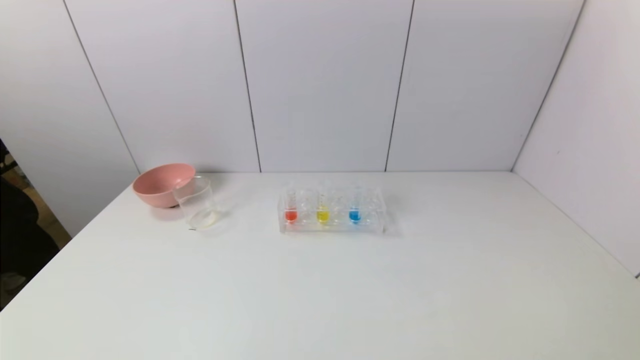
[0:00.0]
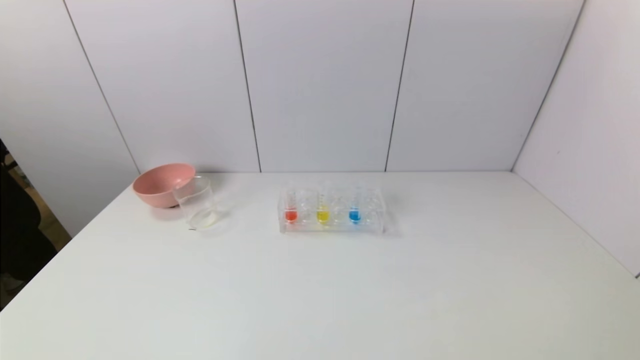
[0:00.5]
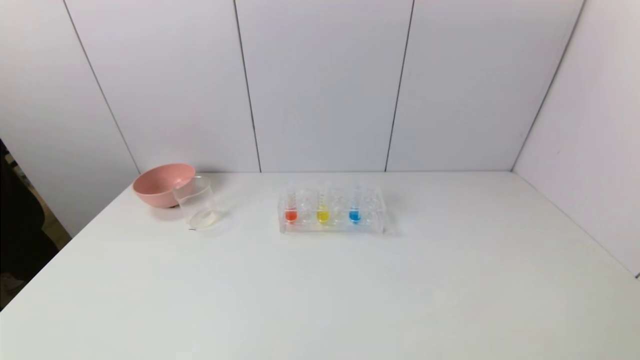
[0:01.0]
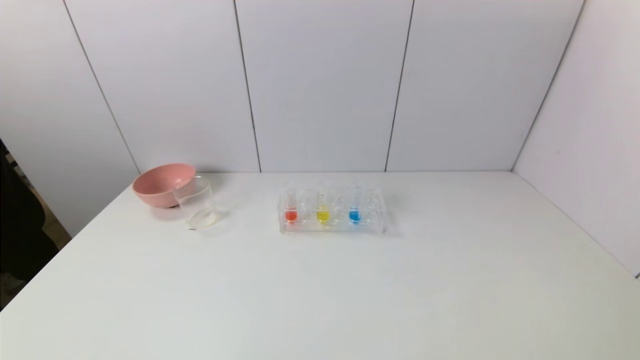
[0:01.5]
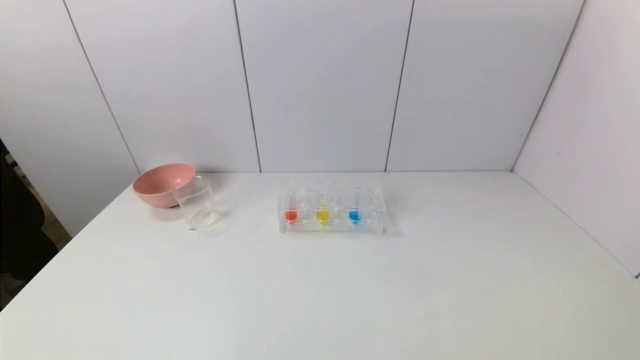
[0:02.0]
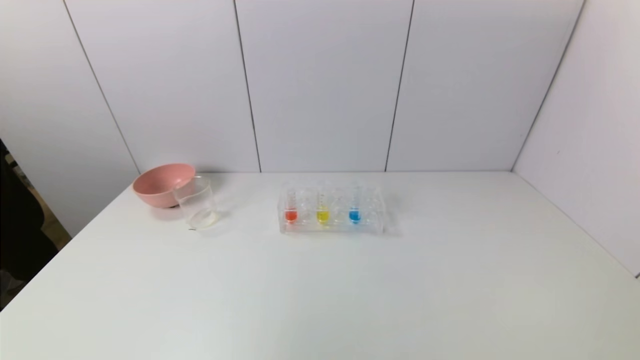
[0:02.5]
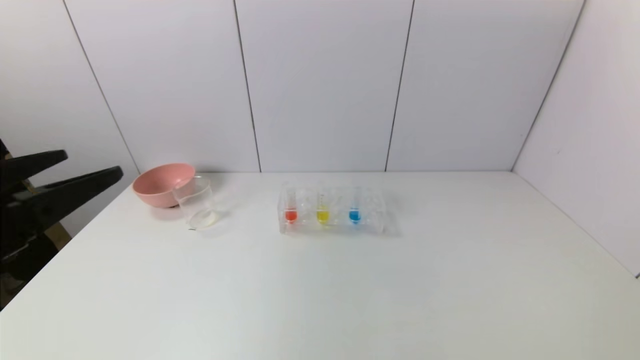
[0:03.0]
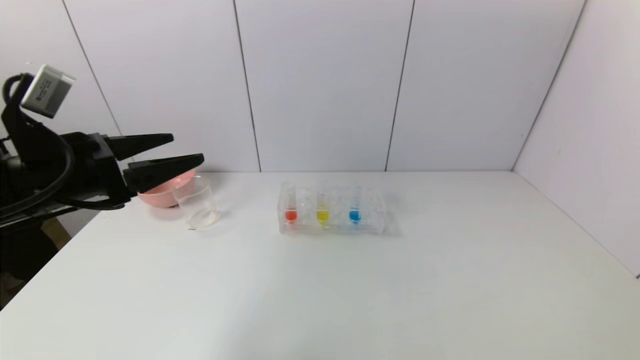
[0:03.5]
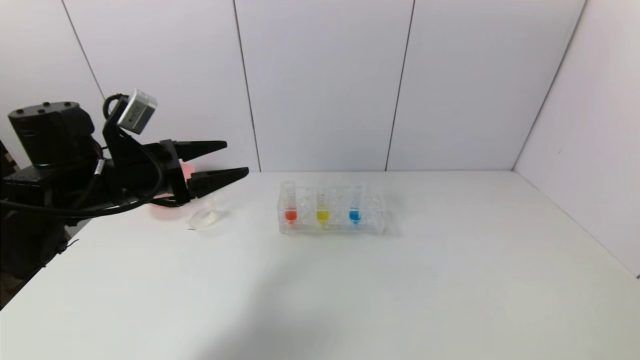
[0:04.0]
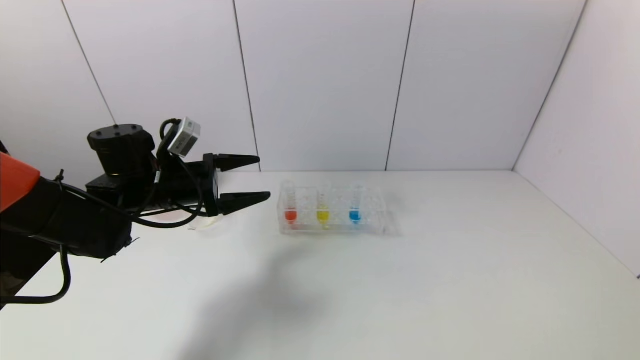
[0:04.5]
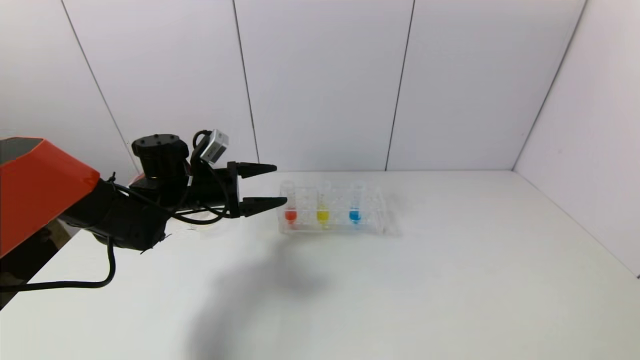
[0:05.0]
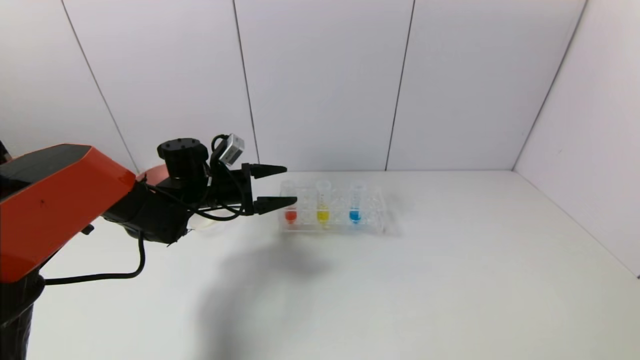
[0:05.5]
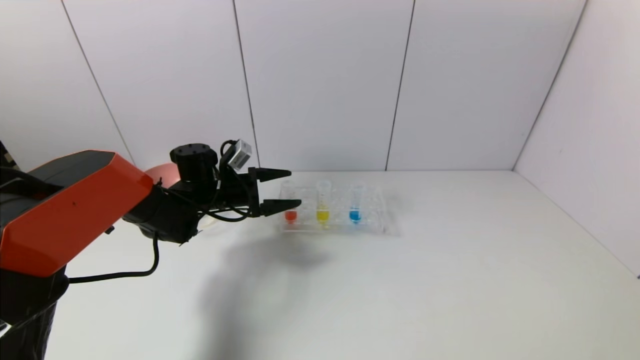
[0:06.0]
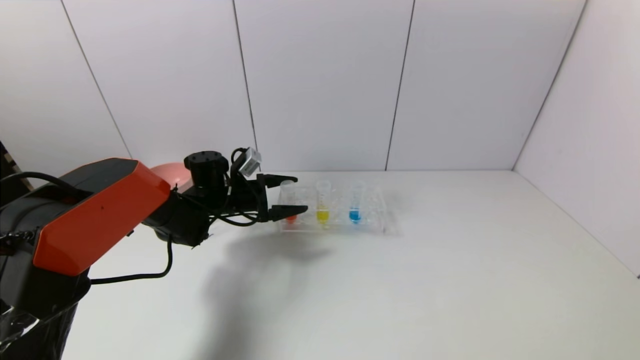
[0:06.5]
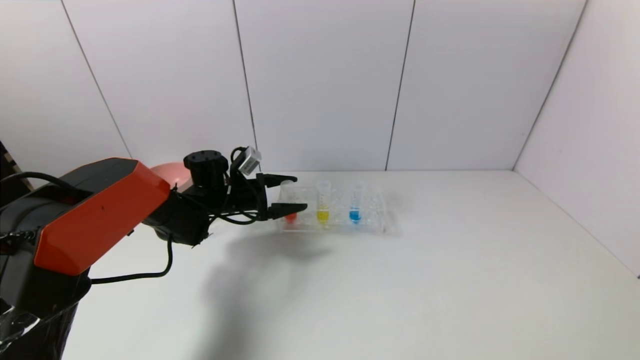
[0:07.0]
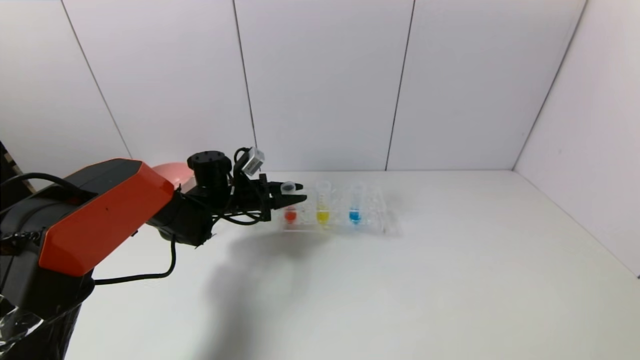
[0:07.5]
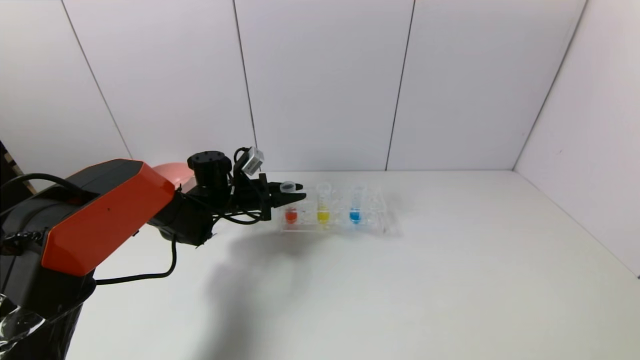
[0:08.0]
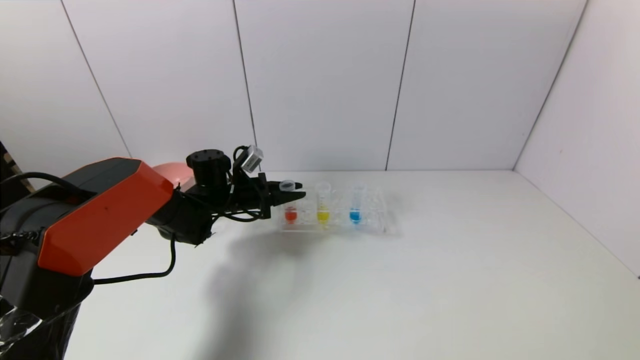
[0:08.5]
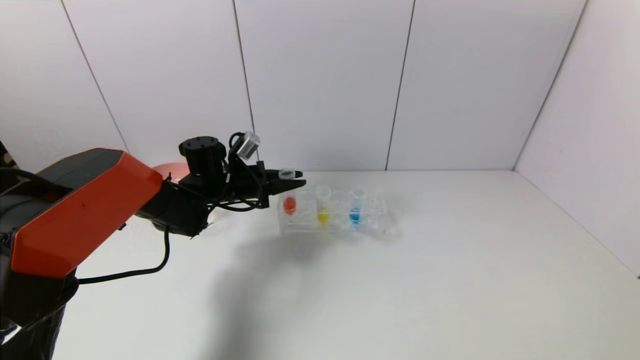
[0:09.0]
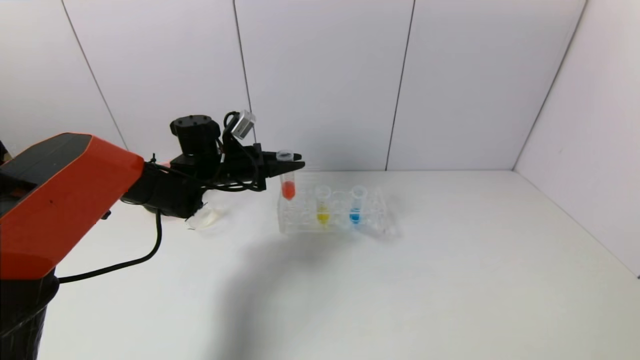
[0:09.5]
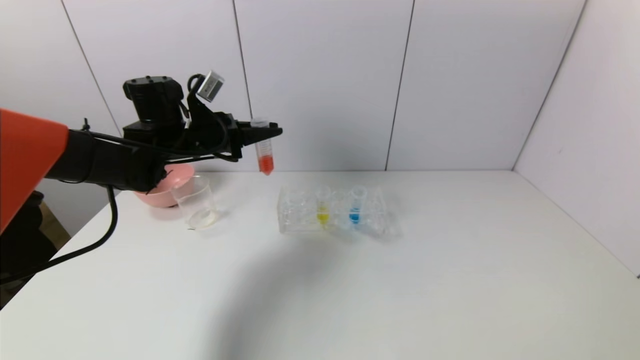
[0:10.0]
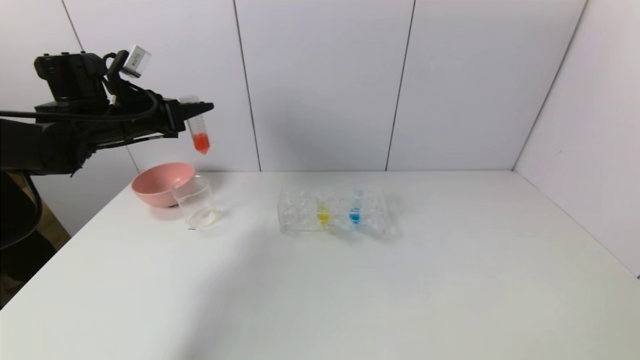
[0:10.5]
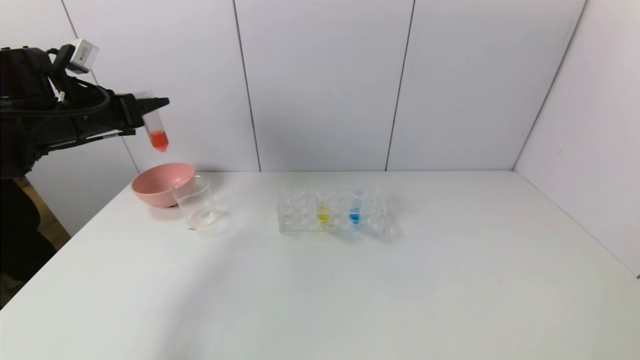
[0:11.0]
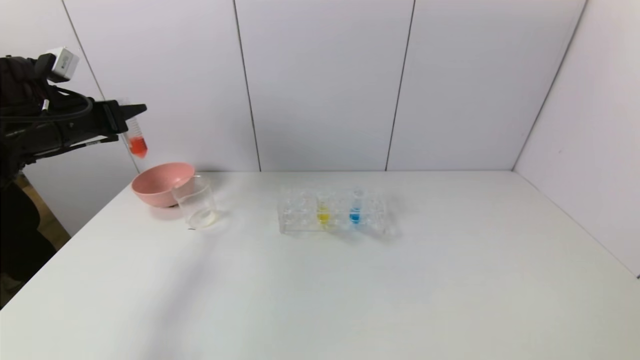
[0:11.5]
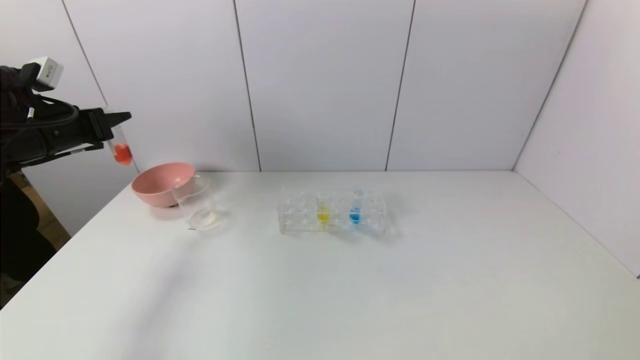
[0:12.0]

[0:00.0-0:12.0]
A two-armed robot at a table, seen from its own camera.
Task of the whole recording: pick up the test tube with yellow pigment and the test tube with red pigment by grippers and pour them into the beaker.
Step, 0:00.0 to 0:07.5: Grasp the red reagent with the left gripper.
0:02.0 to 0:04.0: The left gripper moves forward, about 35 cm.
0:04.0 to 0:06.0: The left gripper travels forward, downward and to the right by some 20 cm.
0:06.0 to 0:08.0: The left gripper closes.
0:08.0 to 0:10.0: The left gripper moves upward, some 15 cm.
0:10.0 to 0:12.0: The left gripper goes about 15 cm to the left.

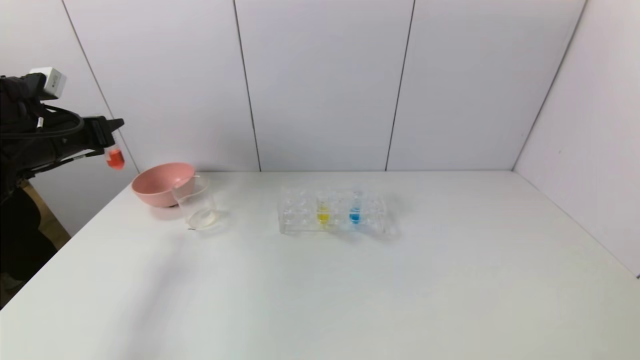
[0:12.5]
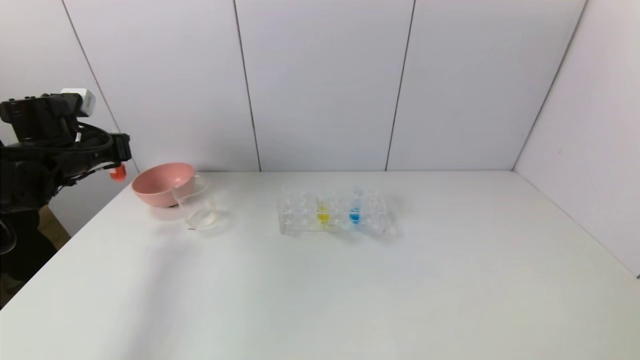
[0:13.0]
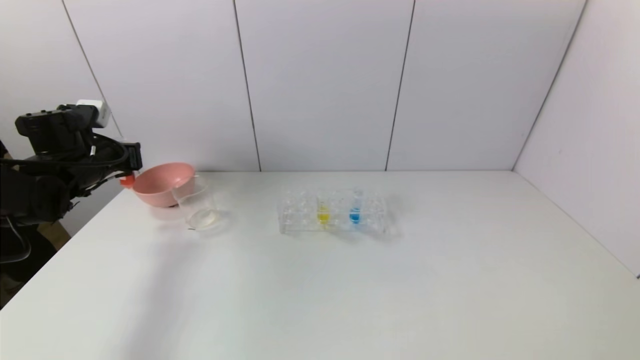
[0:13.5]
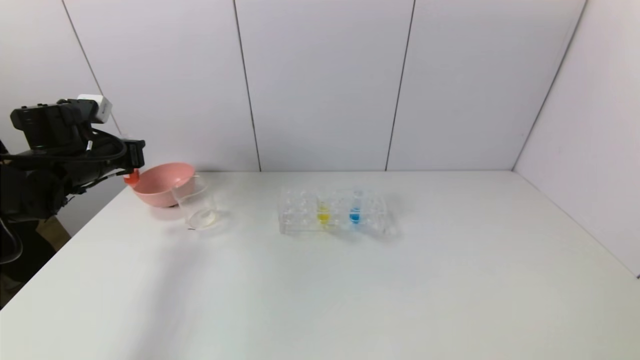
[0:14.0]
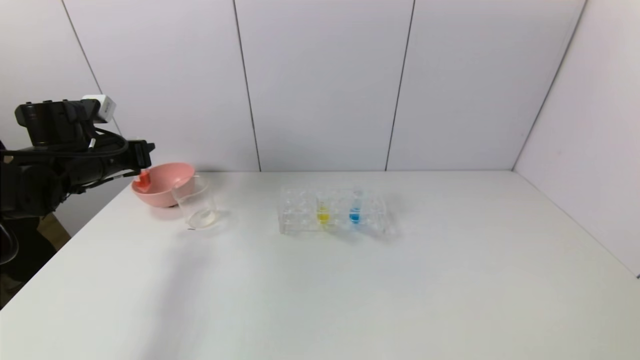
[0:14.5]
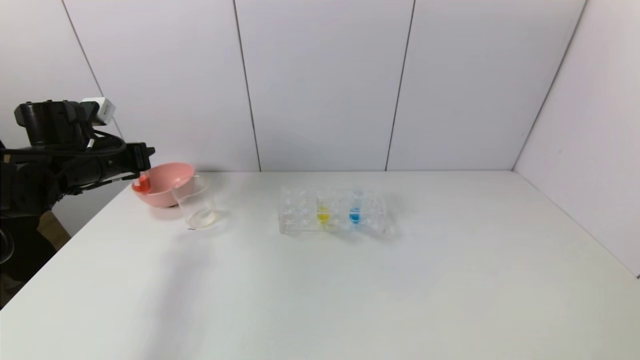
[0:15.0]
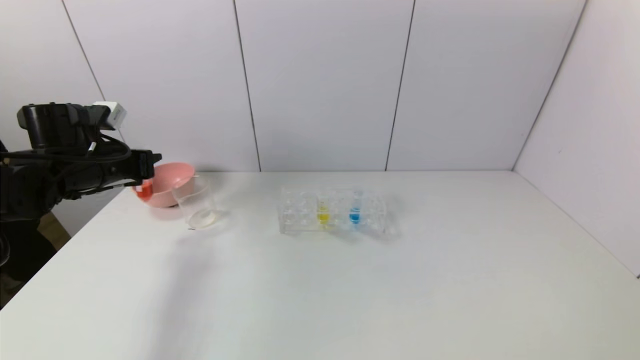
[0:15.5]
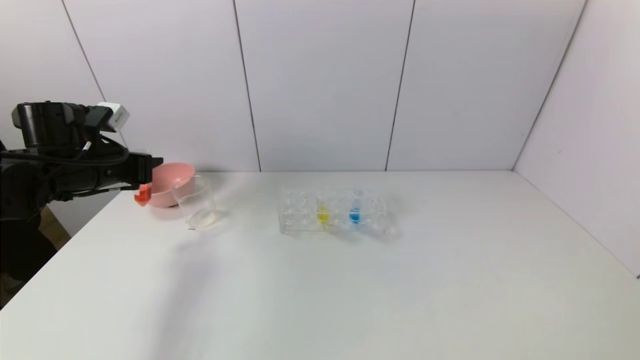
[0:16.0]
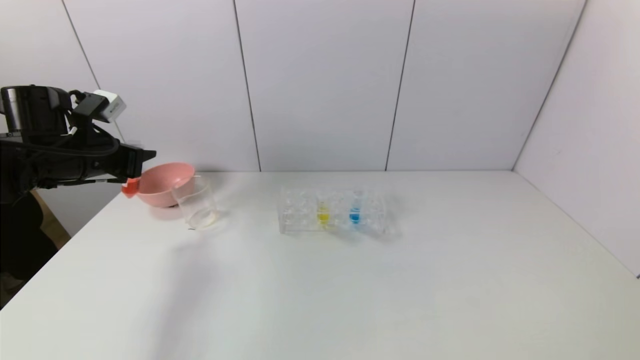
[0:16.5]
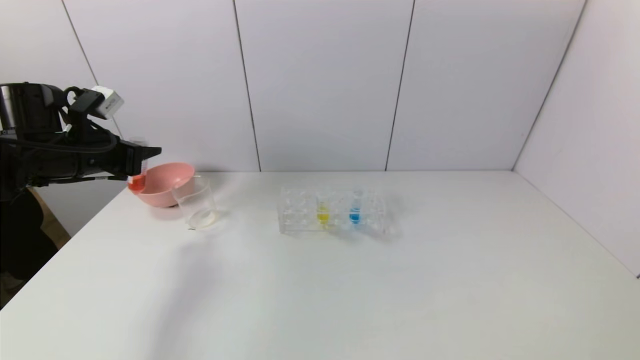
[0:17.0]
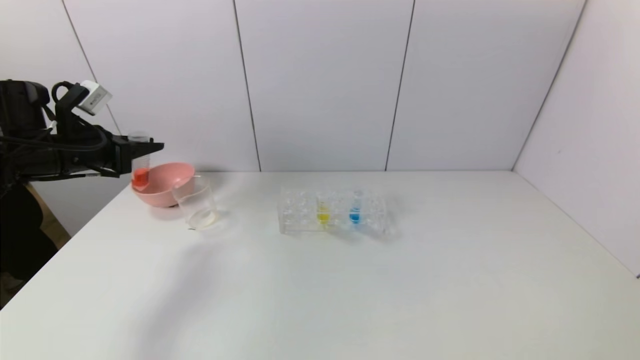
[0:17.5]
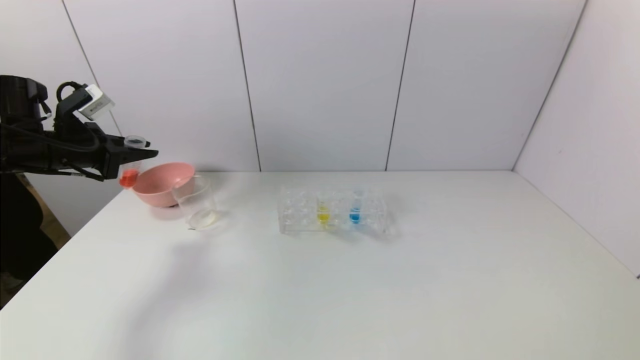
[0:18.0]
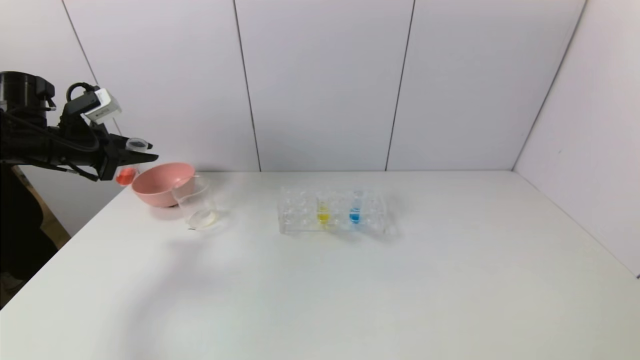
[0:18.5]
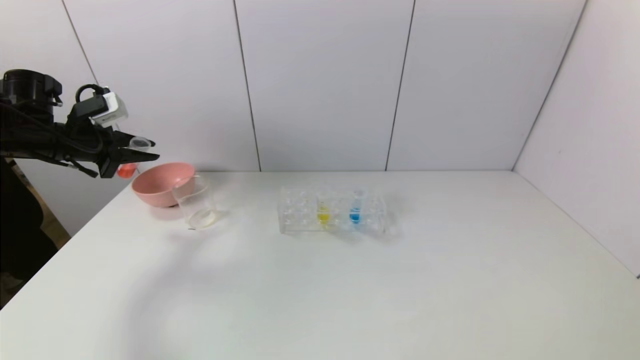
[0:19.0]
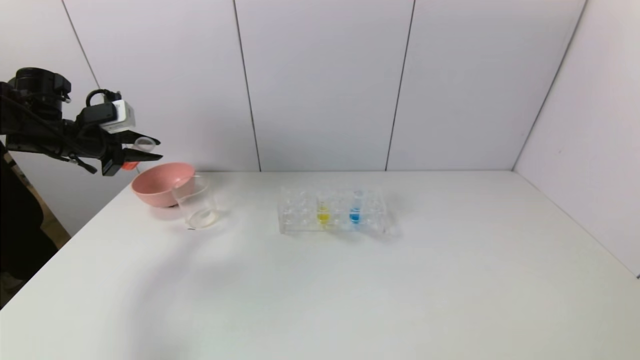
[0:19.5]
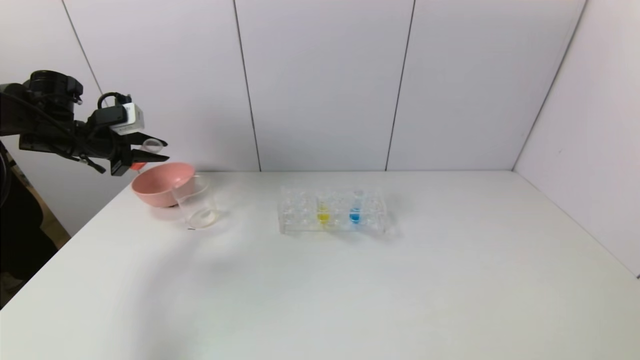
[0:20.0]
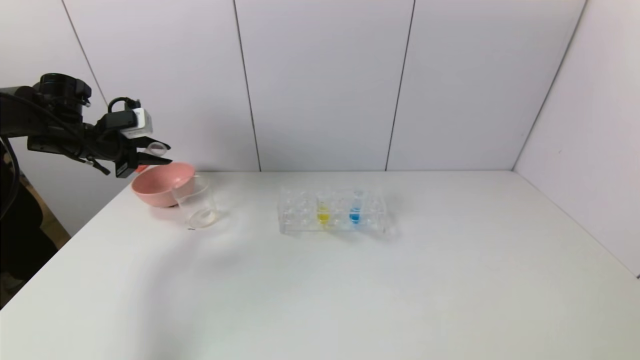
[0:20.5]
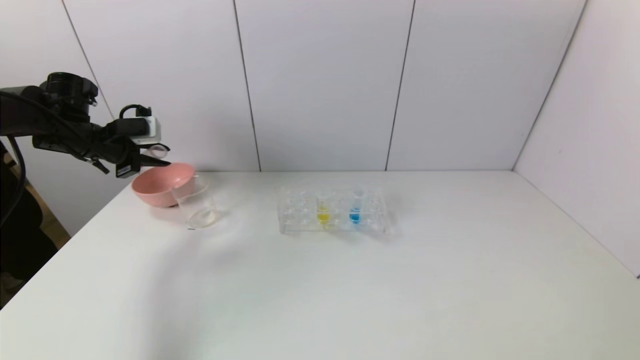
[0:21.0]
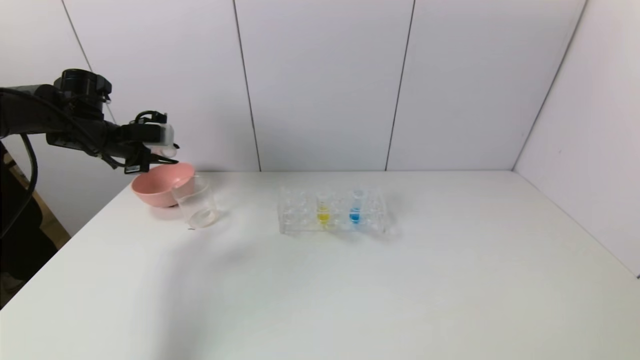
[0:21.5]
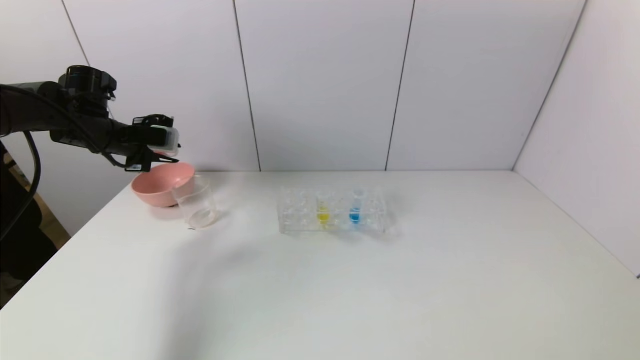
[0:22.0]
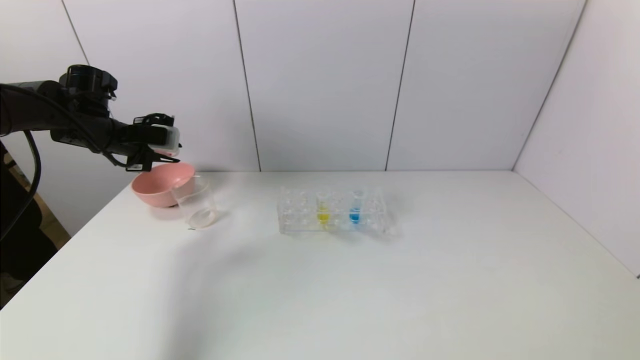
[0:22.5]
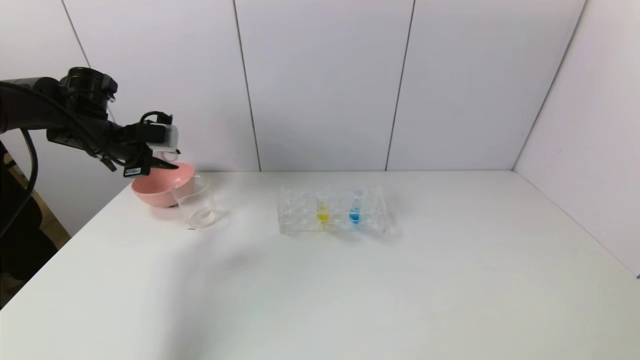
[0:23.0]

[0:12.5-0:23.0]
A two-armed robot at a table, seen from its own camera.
Task of the whole recording: pick up the test tube with yellow pigment and the test tube with red pigment by grippers and pour them into the beaker.
0:12.5 to 0:14.5: The left gripper shifts by roughly 5 cm.
0:14.5 to 0:16.5: There are only small adjustments of the grippers.
0:16.5 to 0:19.0: The left gripper goes about 5 cm to the left.
0:21.0 to 0:23.0: There are only small adjustments of the grippers.
